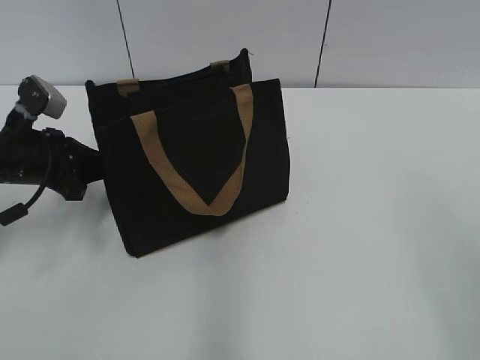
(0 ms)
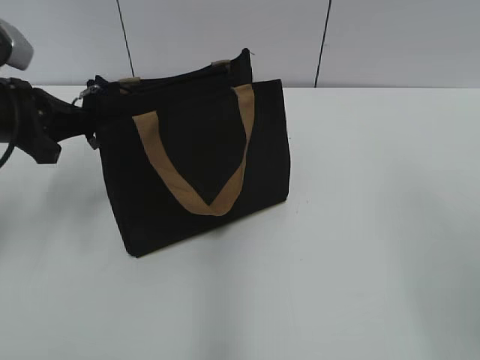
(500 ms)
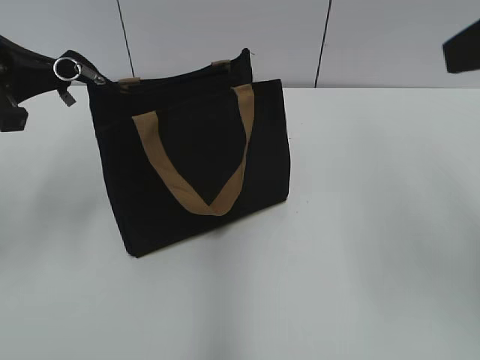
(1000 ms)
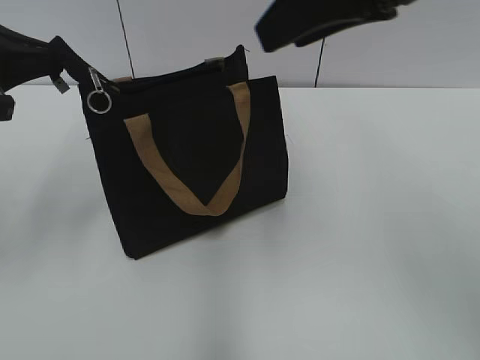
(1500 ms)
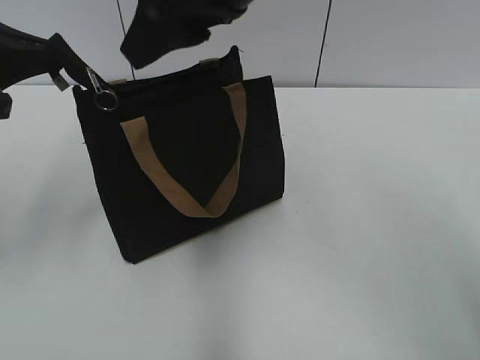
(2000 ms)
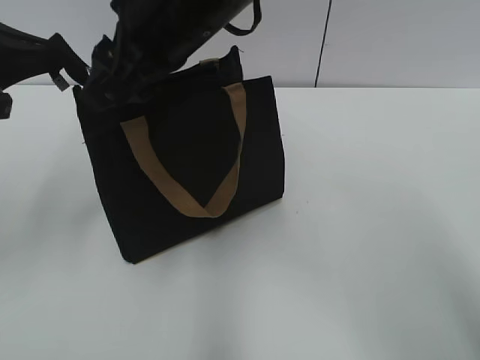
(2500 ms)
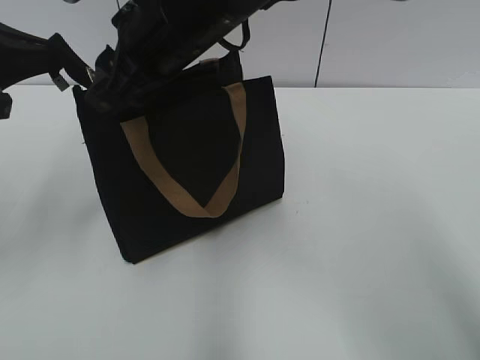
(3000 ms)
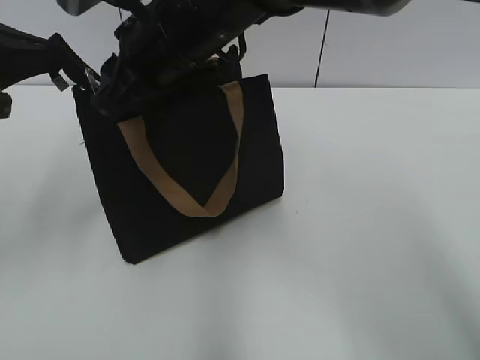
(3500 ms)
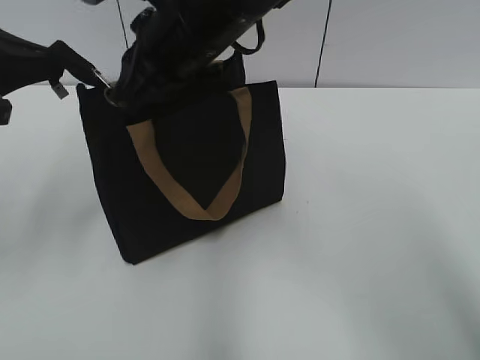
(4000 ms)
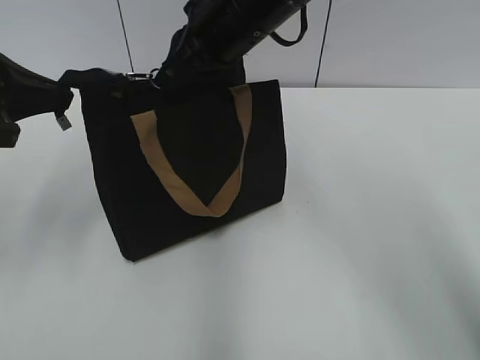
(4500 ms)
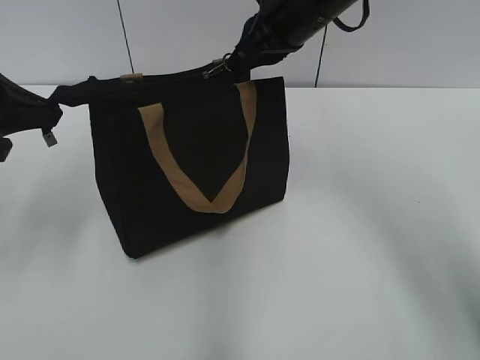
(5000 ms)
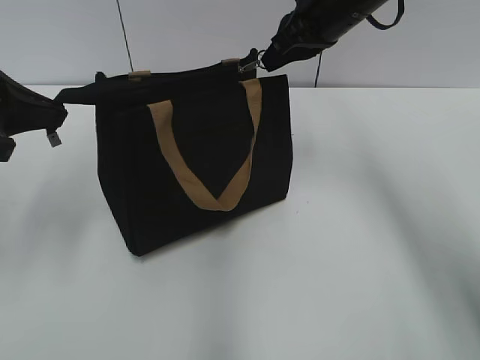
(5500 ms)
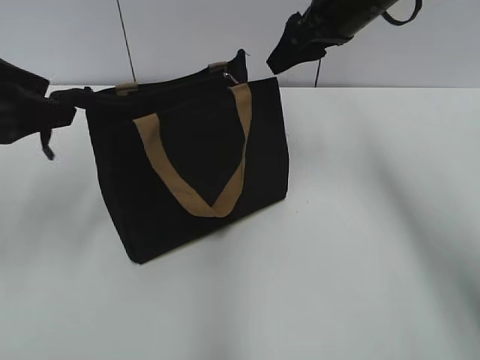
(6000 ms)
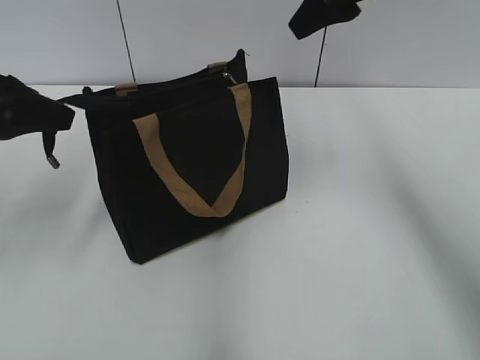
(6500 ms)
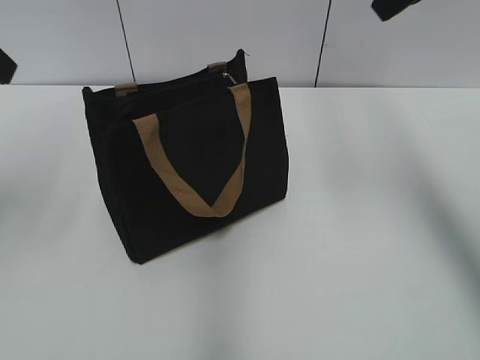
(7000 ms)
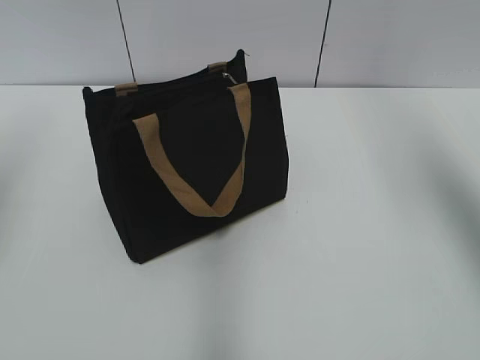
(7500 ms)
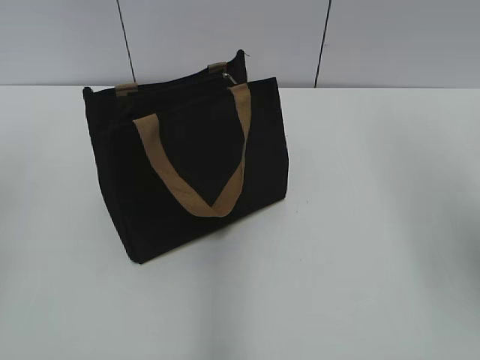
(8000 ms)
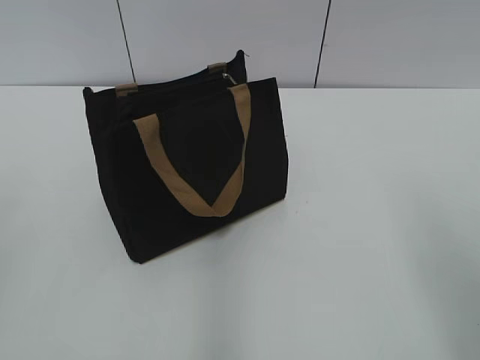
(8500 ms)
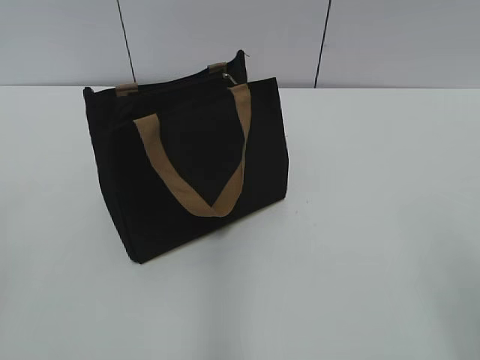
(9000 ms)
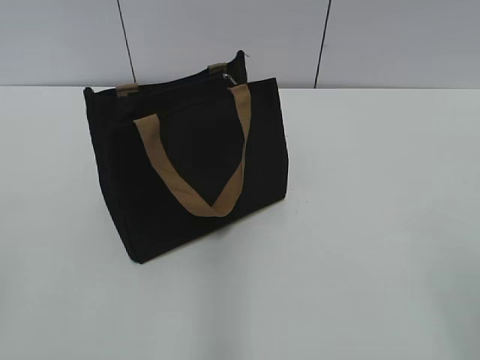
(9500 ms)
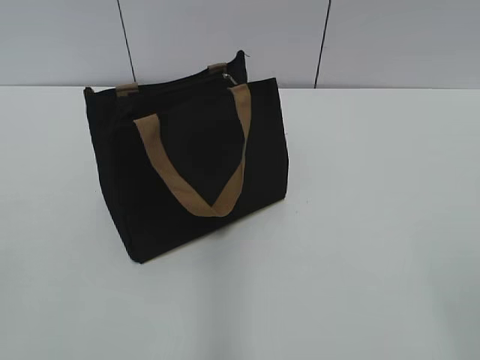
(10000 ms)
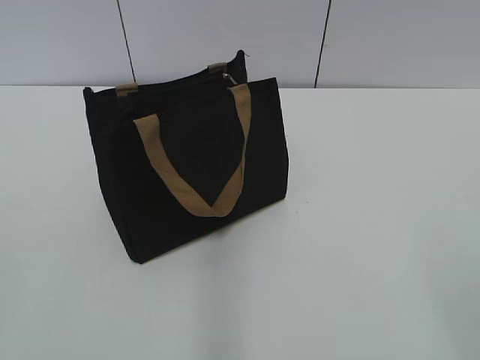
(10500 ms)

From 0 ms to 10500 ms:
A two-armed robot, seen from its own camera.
Step, from 0 ms to 5500 ms: Zip up the bag with your right hand.
From 0 ms to 2000 ms: The left gripper is displaced upward by some 15 cm; the right gripper shifts roughly 35 cm to the left and forward.
From 2000 ms to 4000 ms: The right gripper travels downward and to the left by about 10 cm, and closes up.
From 4000 ms to 6500 ms: The left gripper opens its fingers; the right gripper shifts approximately 20 cm to the right, and opens its fingers.
From 6500 ms to 8500 ms: The right gripper is displaced backward and to the right by approximately 30 cm; the left gripper goes some 20 cm backward.

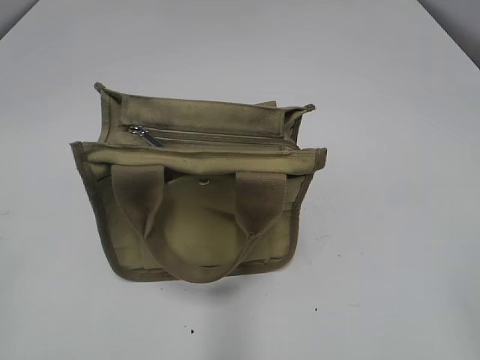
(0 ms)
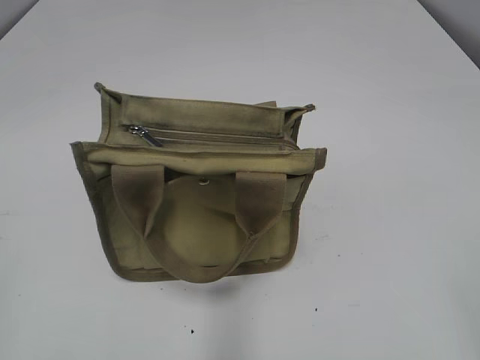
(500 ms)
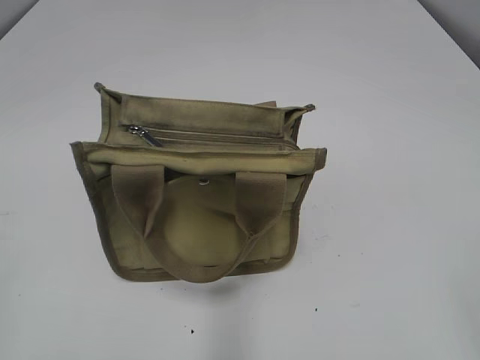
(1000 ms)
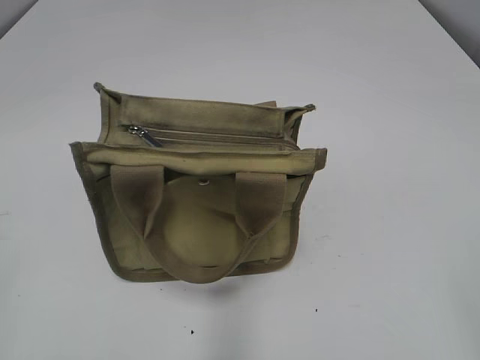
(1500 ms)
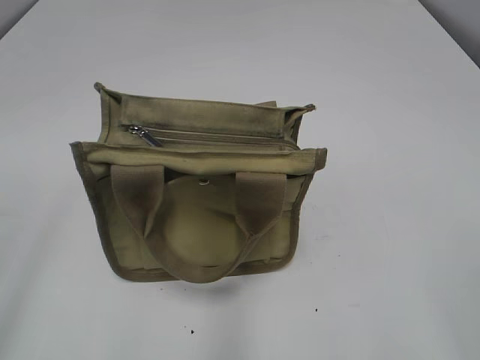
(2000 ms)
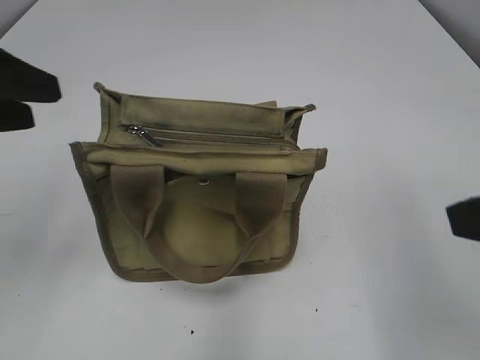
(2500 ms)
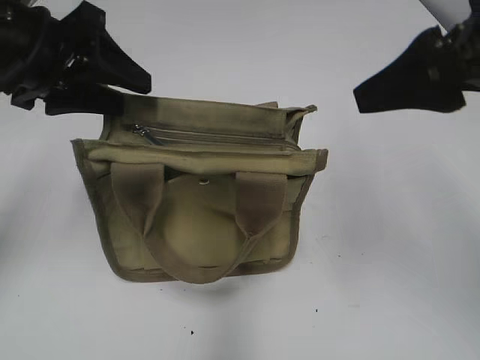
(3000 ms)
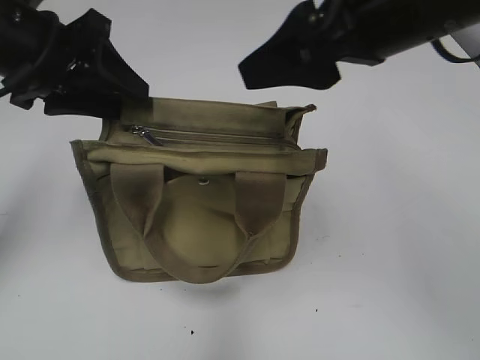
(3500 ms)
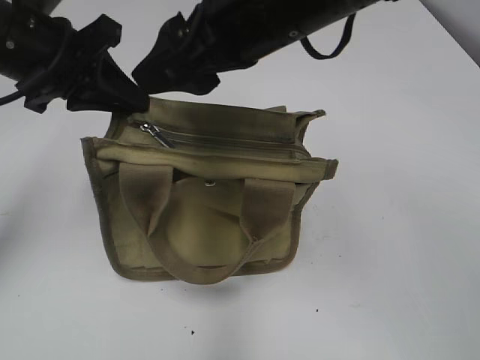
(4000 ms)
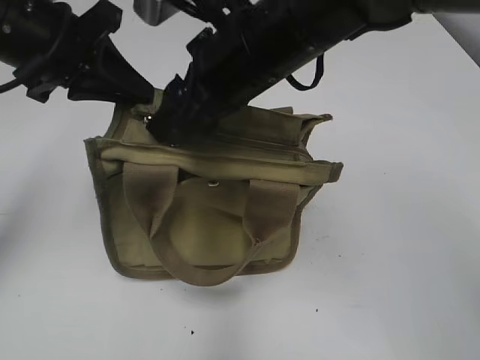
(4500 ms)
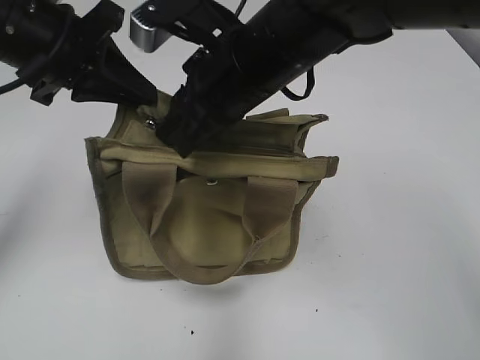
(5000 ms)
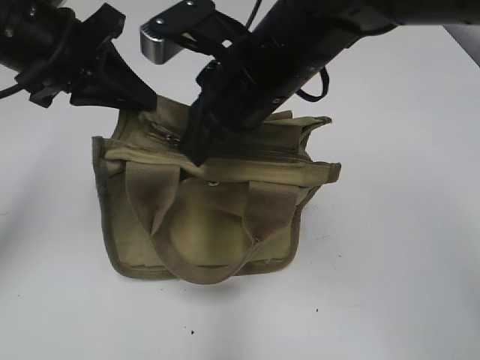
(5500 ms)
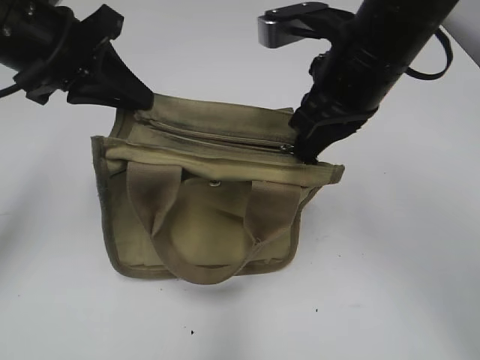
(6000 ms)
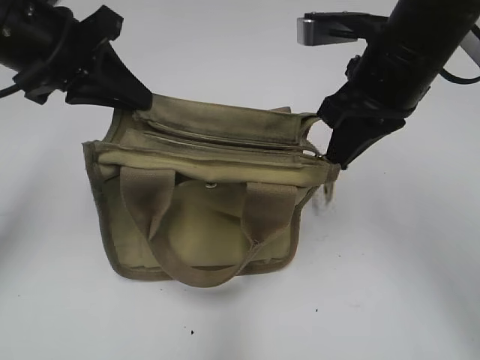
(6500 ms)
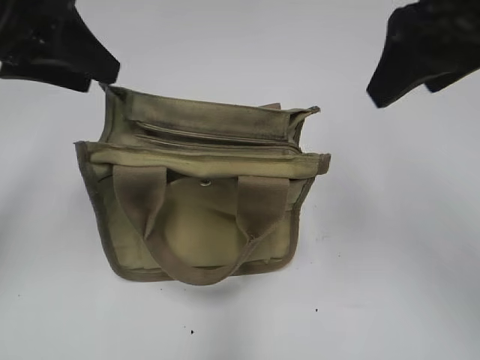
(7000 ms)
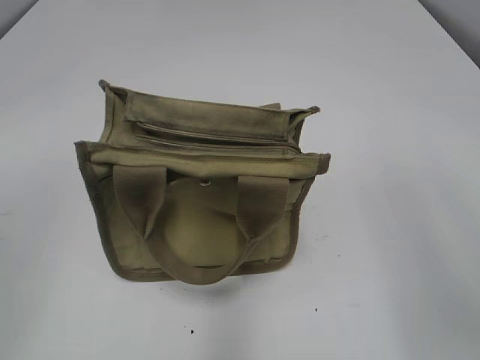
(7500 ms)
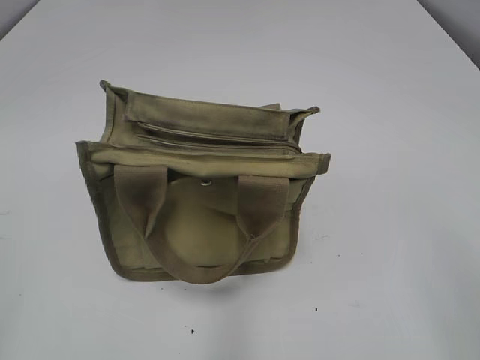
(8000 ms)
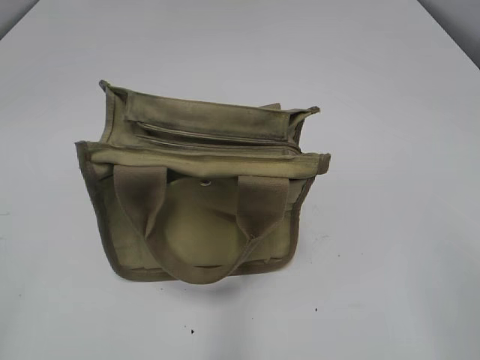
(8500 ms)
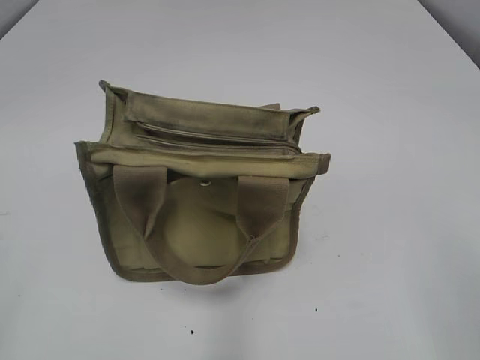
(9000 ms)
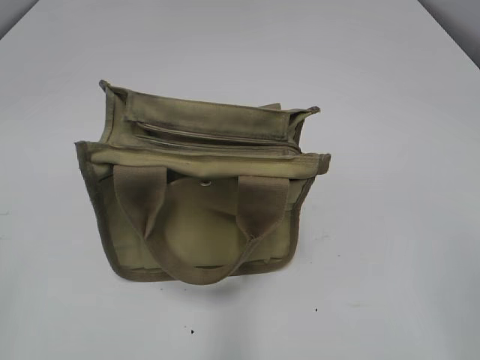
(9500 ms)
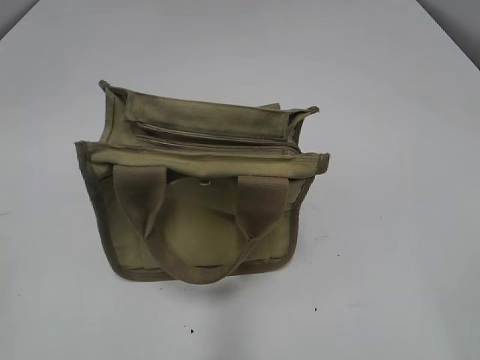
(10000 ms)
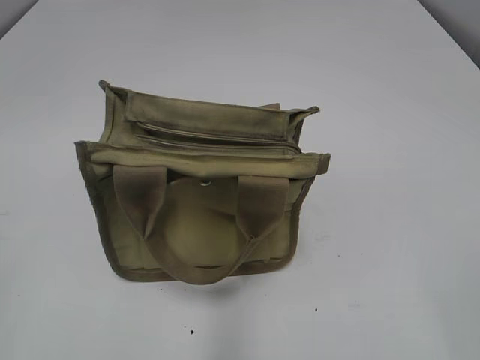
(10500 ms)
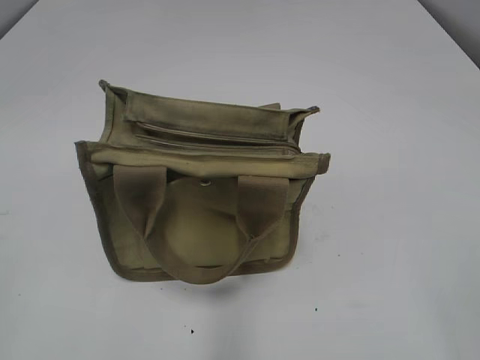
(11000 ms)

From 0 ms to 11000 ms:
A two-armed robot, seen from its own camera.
Step, from 0 ms to 6500 ms: Pull open the zipper with your right hand.
From 2000 ms to 3500 ms: The right gripper travels forward and to the left by roughly 30 cm; the left gripper goes some 30 cm forward and to the right.
From 3500 ms to 5500 ms: The left gripper closes up, while the right gripper goes about 15 cm to the left and downward, and closes.
From 5500 ms to 7500 ms: The right gripper shifts some 30 cm to the right, backward and upward, and opens up. Meanwhile the left gripper travels backward, upward and to the left by approximately 20 cm, and opens up.

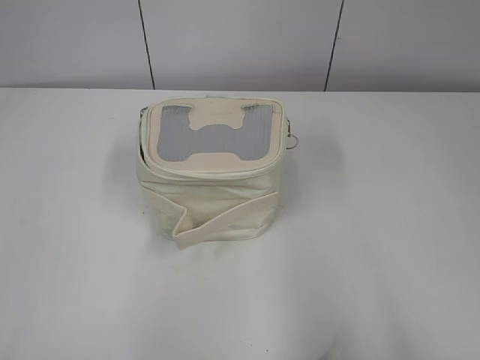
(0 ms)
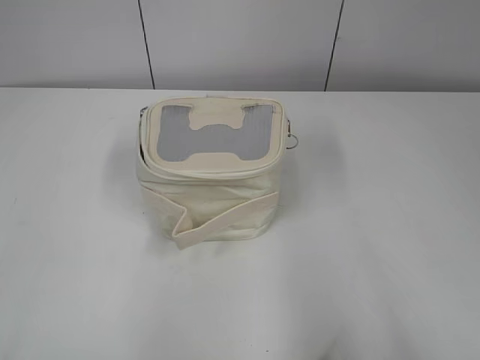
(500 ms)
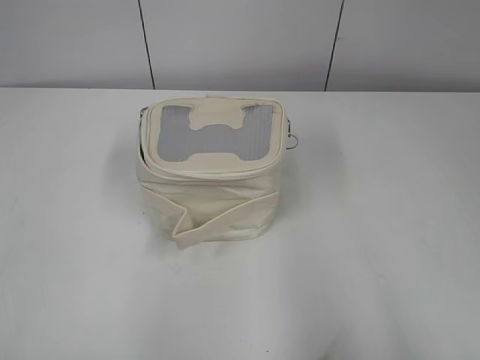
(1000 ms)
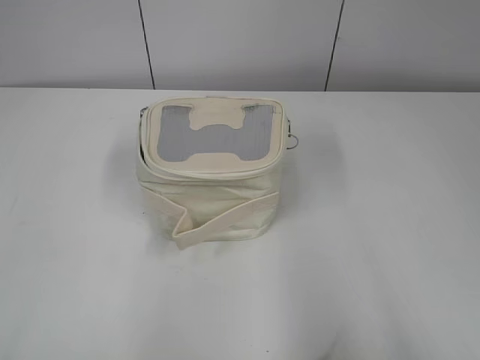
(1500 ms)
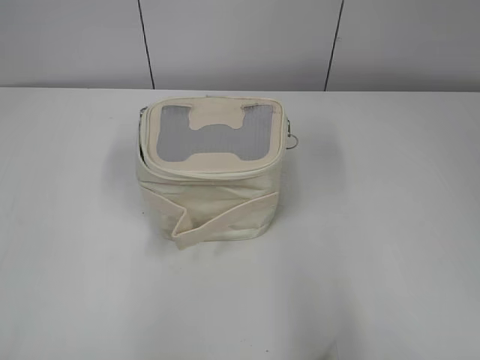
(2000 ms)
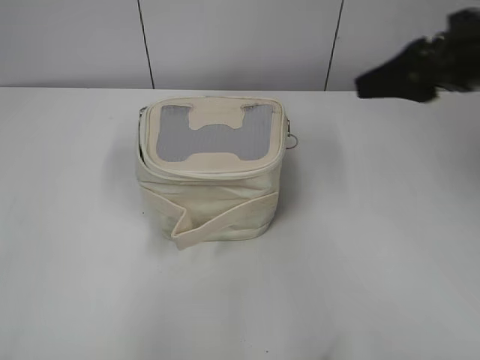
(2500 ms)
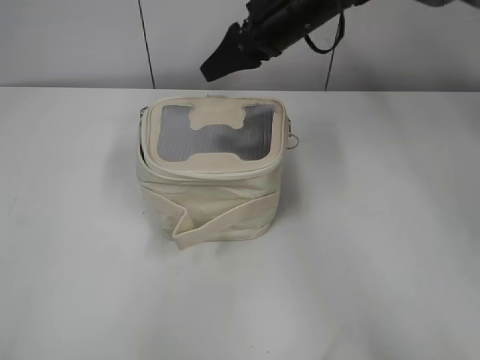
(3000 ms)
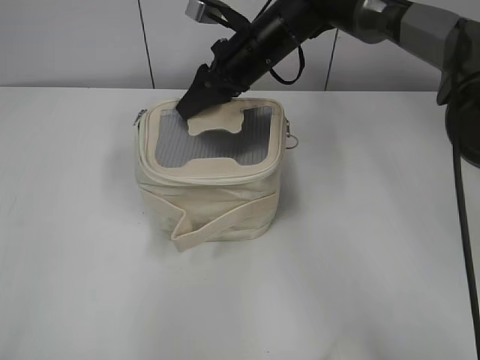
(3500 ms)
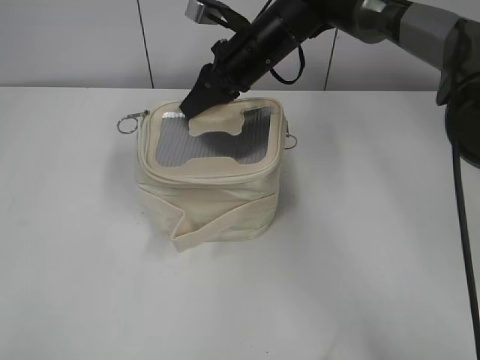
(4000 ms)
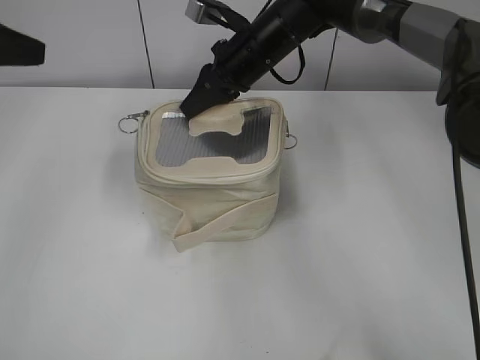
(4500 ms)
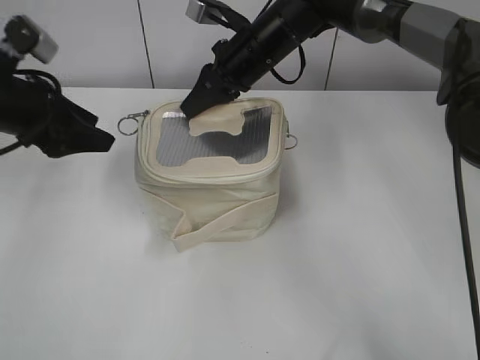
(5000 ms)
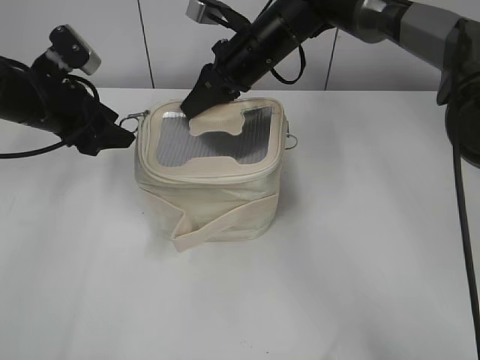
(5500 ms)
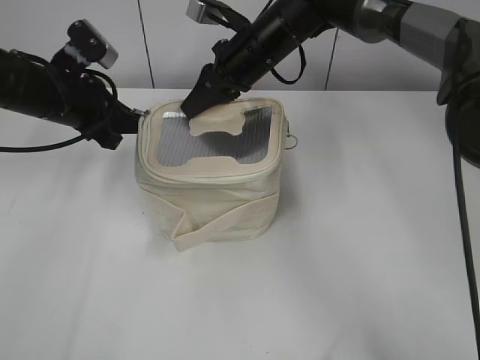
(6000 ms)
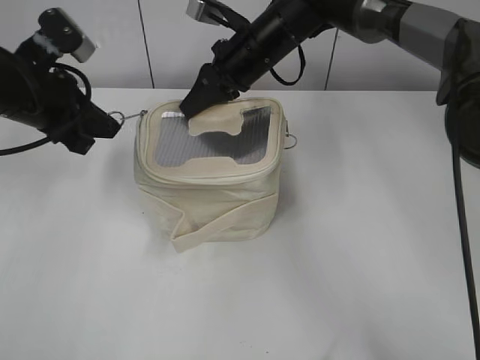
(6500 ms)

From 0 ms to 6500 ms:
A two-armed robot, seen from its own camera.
From 2000 ms to 4500 ms: The left gripper goes about 30 cm forward, while the right gripper goes about 50 cm forward and to the left, and closes.
From 4500 ms to 6500 ms: The left gripper heads downward and to the right, covering approximately 10 cm, and closes.
